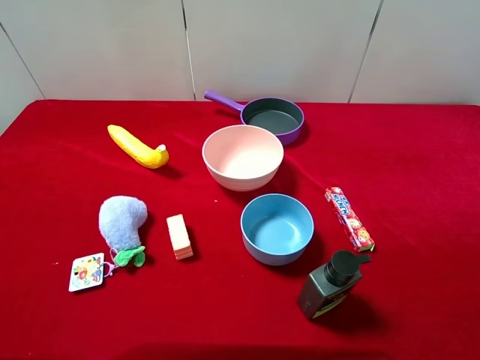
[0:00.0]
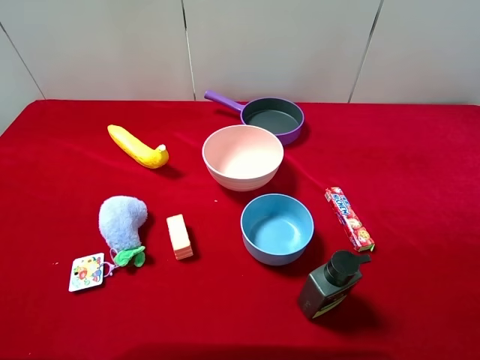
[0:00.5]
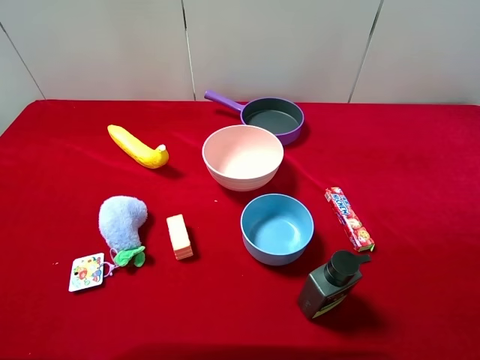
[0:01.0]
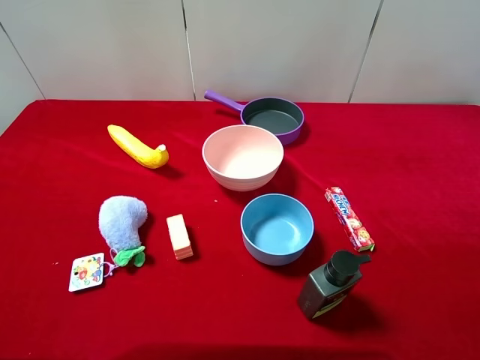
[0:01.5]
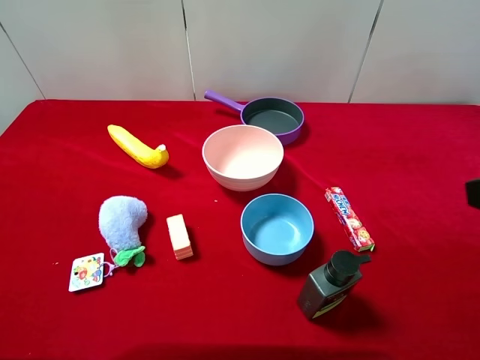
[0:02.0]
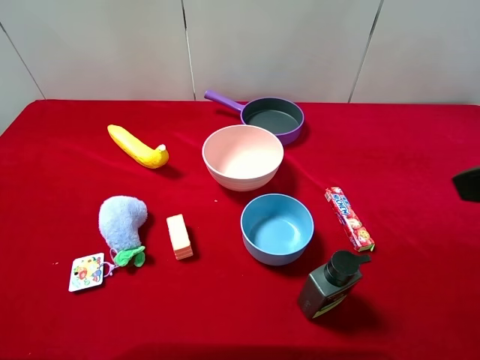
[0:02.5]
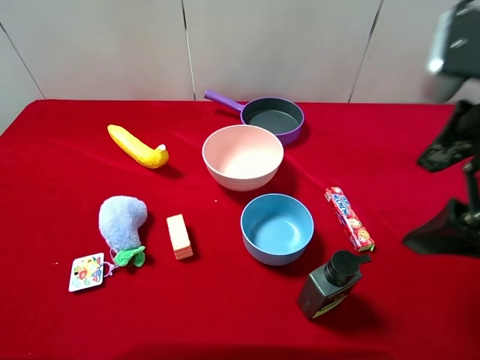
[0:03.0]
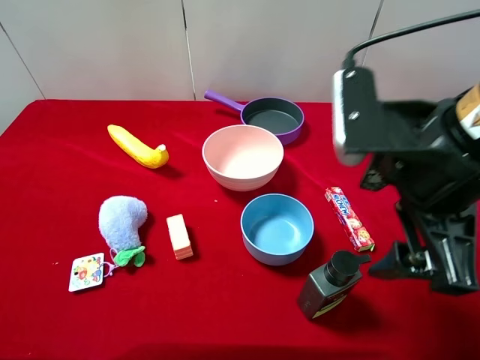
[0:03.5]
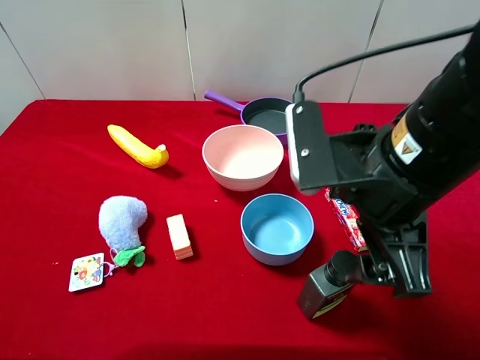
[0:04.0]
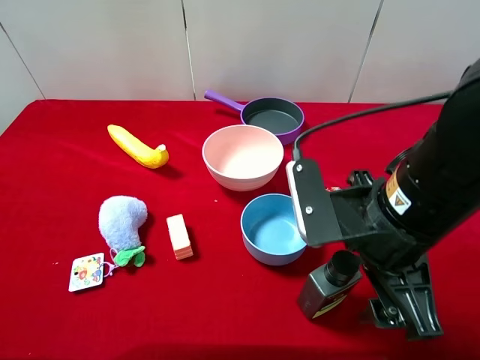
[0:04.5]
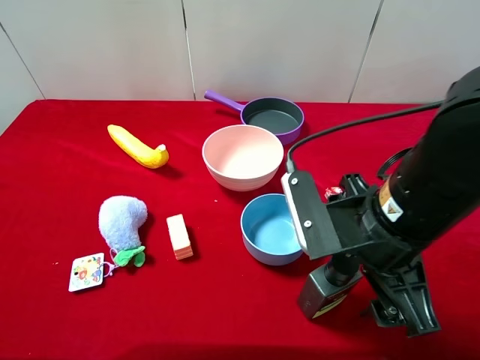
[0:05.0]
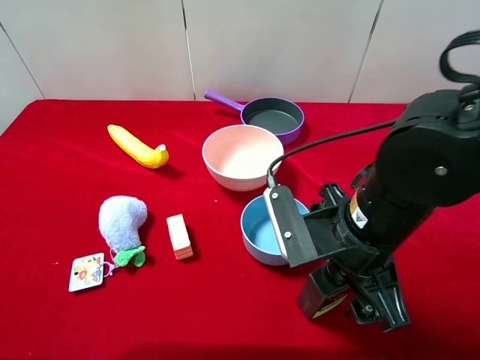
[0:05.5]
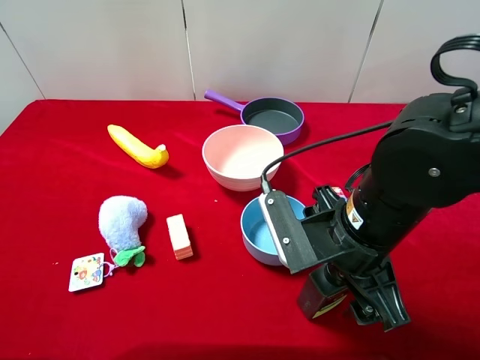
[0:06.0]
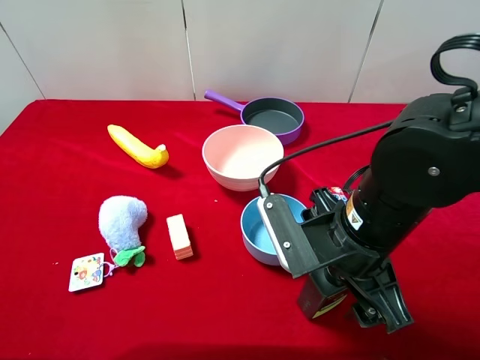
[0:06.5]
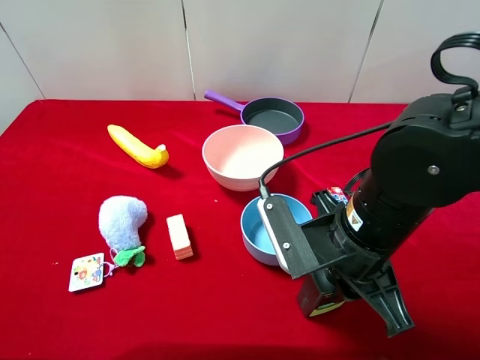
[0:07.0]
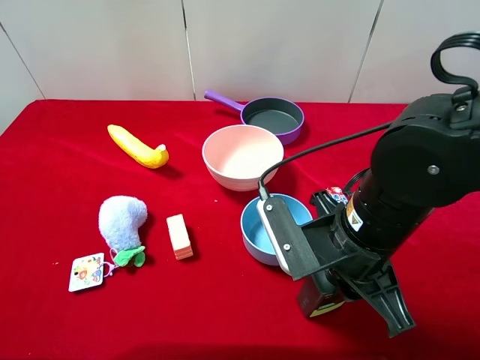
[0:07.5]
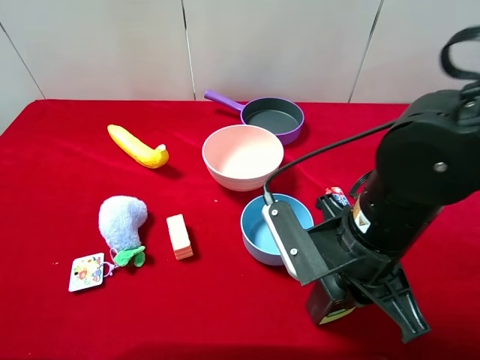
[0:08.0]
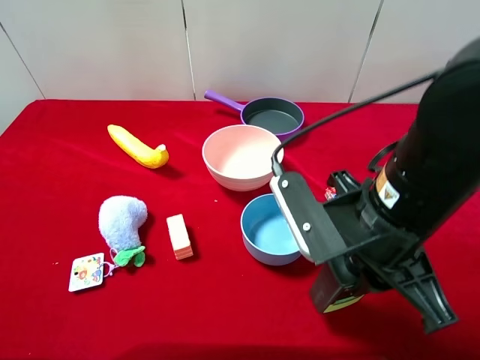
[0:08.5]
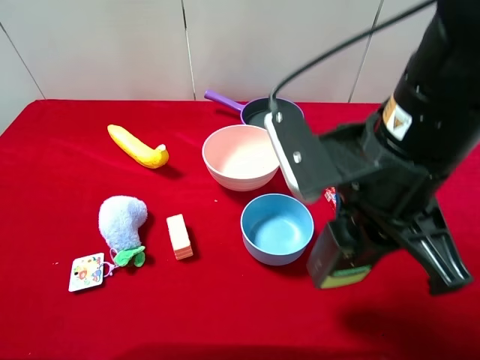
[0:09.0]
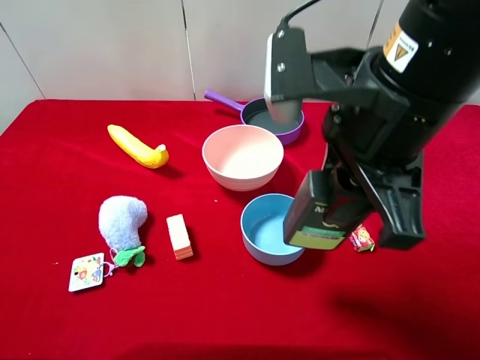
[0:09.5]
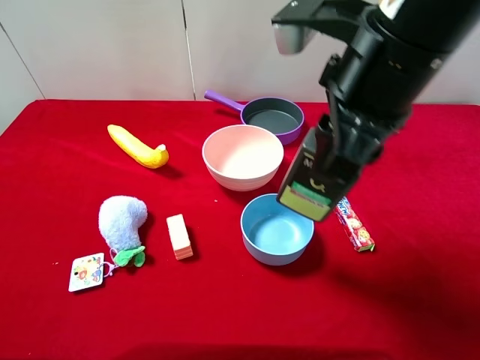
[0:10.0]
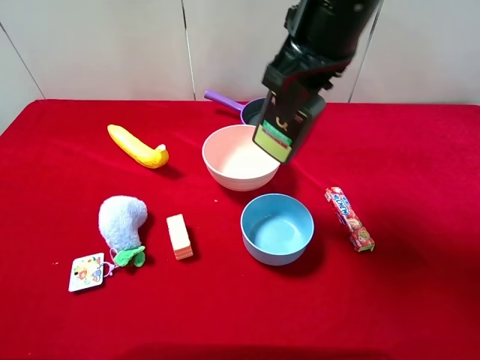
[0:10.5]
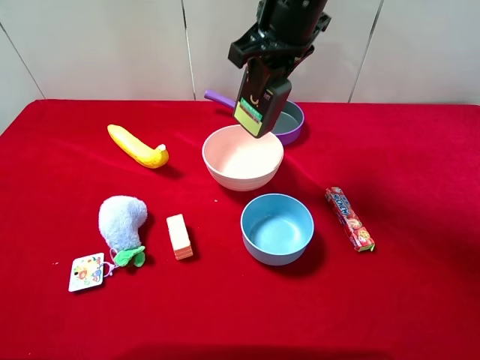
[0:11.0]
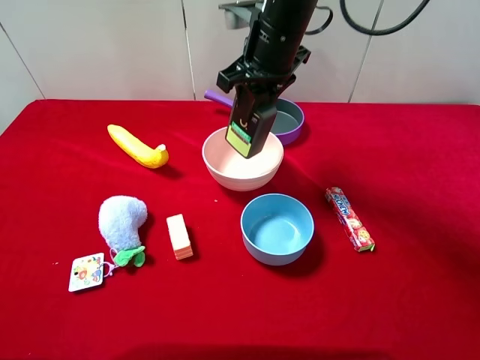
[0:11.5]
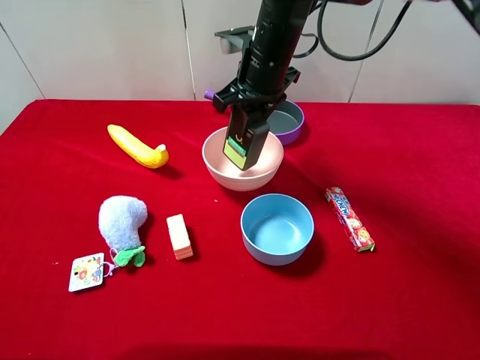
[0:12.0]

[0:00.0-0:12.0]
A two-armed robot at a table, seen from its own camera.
Task of the whole recording: pick up an item with a gripper and place it in a random container on the desktop.
0:02.0 to 0:04.0: The right gripper is displaced to the left, downward and forward by some 15 cm.
0:04.0 to 0:06.0: The right gripper is displaced downward by some 10 cm.
0:06.0 to 0:08.0: The right gripper closes up.
0:08.0 to 0:10.0: The right gripper is displaced upward and forward by roughly 15 cm.
0:10.0 to 0:12.0: The right gripper moves forward, downward and to the left, roughly 20 cm.

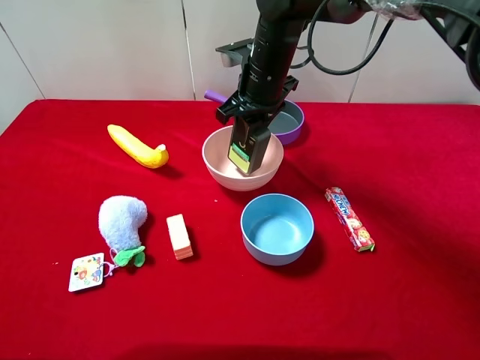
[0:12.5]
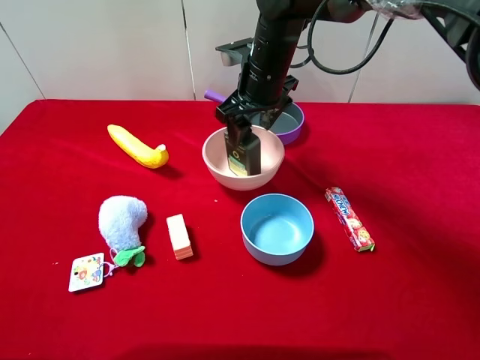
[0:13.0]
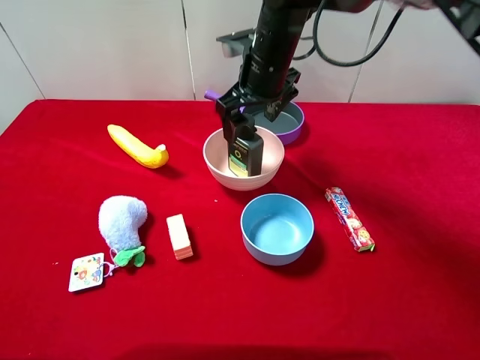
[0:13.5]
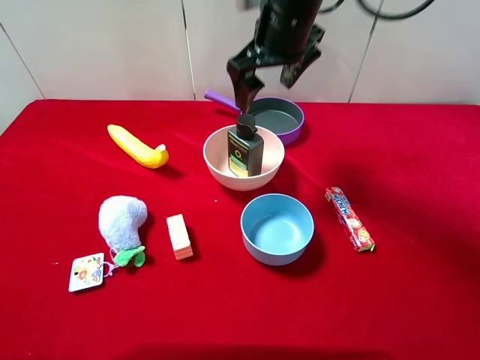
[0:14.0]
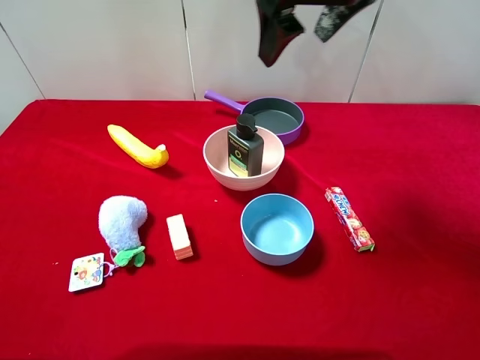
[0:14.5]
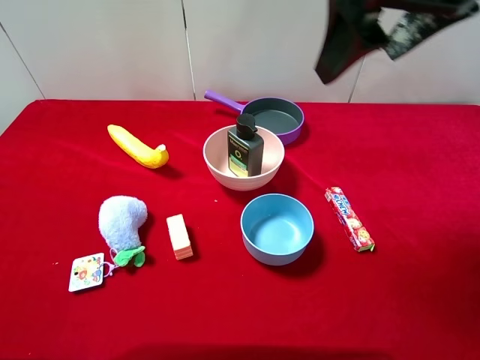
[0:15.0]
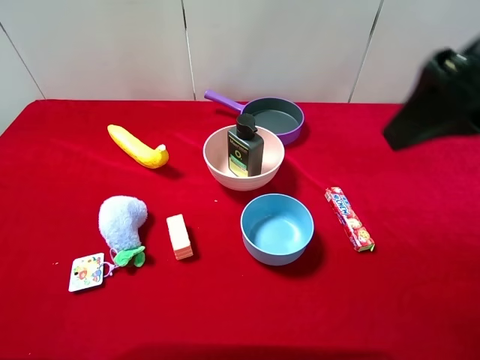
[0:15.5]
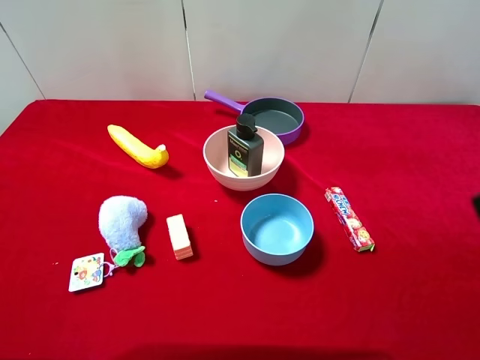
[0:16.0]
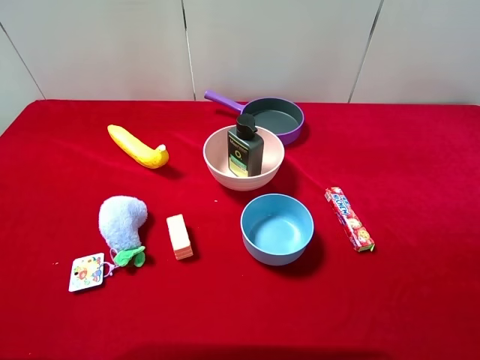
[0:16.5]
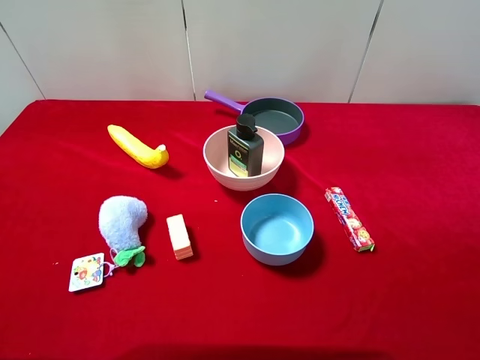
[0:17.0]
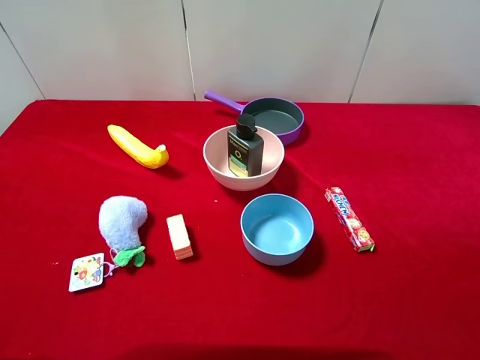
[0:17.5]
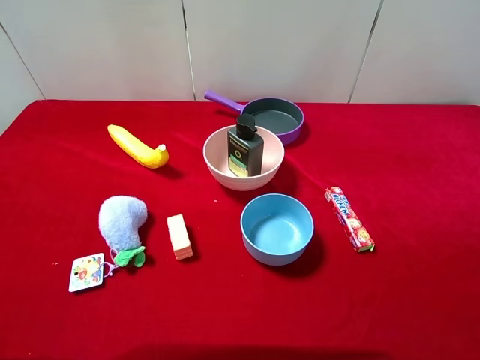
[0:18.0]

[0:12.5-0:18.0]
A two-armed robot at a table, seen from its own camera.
Task of the whole recording: pick up an item with a gripper and place it in a random container on the desktop.
0:12.5 to 0:14.5: The right gripper travels upward and backward by about 20 cm, and opens.
0:14.5 to 0:16.0: The right gripper is displaced backward and to the right by about 30 cm.

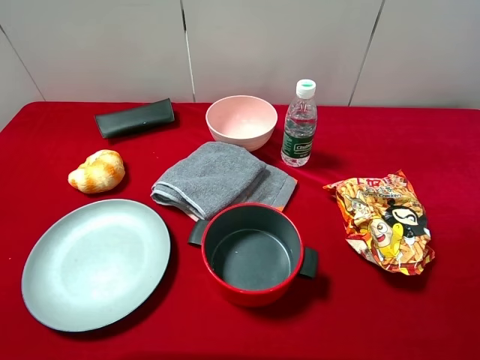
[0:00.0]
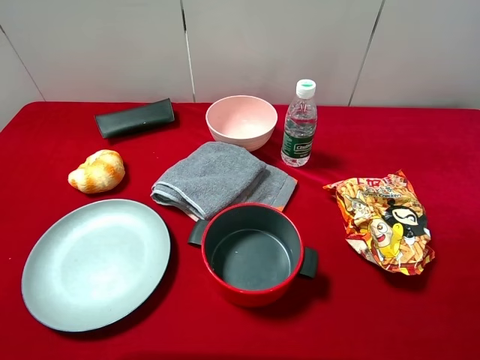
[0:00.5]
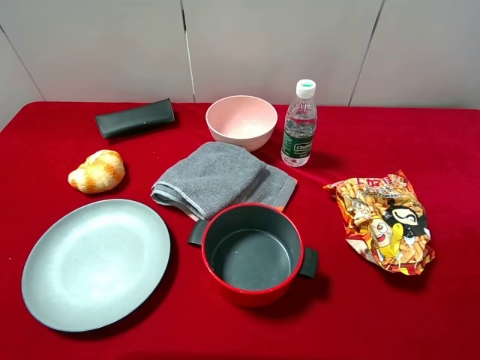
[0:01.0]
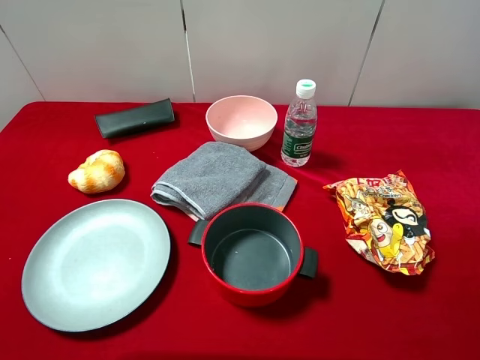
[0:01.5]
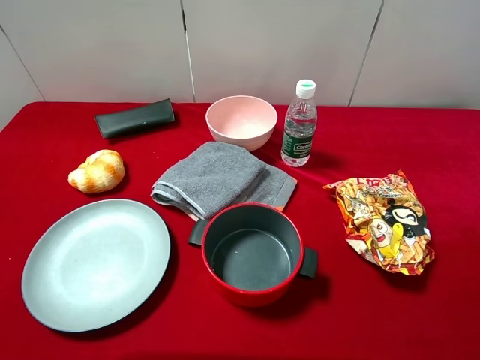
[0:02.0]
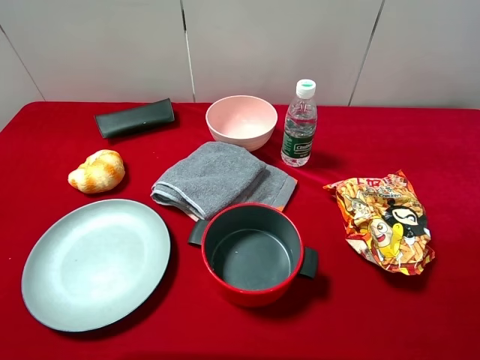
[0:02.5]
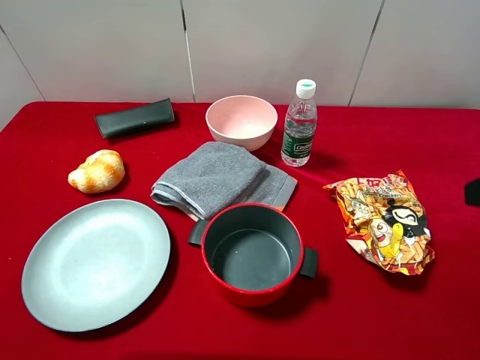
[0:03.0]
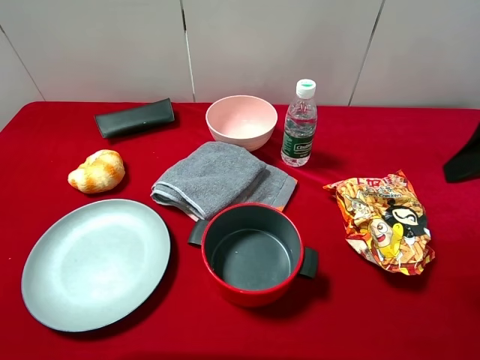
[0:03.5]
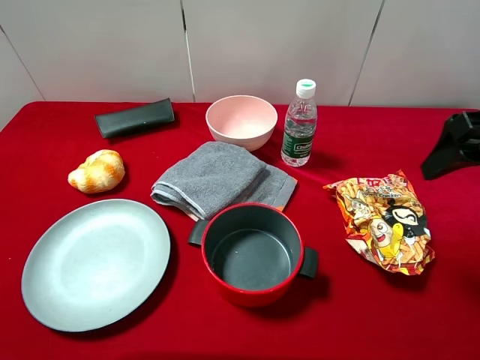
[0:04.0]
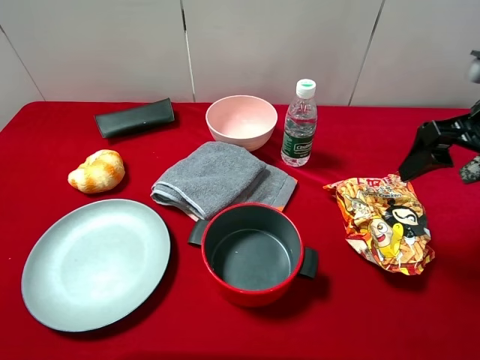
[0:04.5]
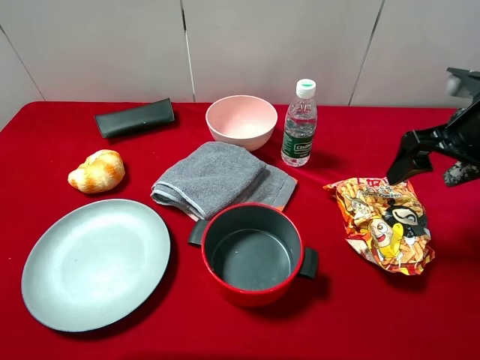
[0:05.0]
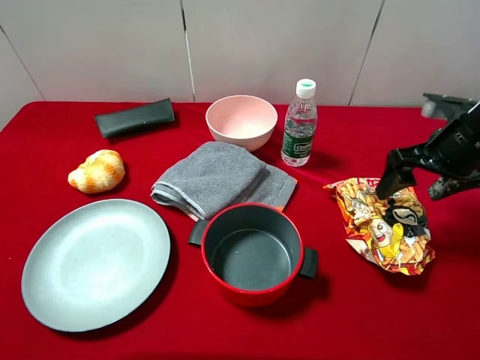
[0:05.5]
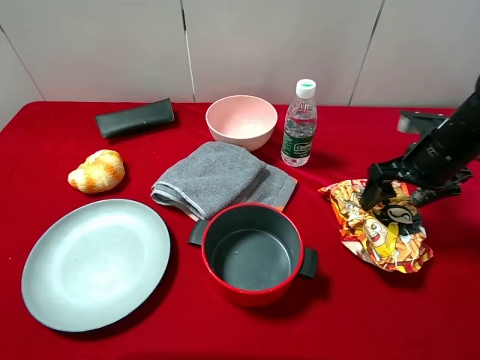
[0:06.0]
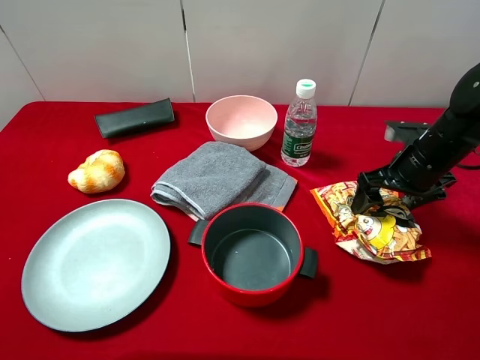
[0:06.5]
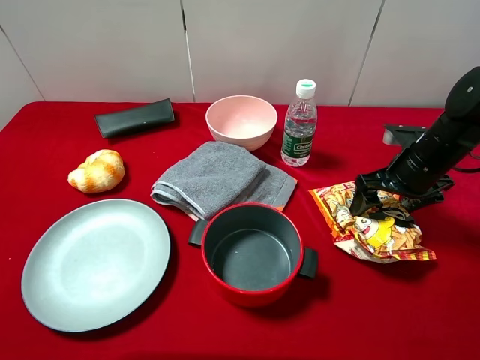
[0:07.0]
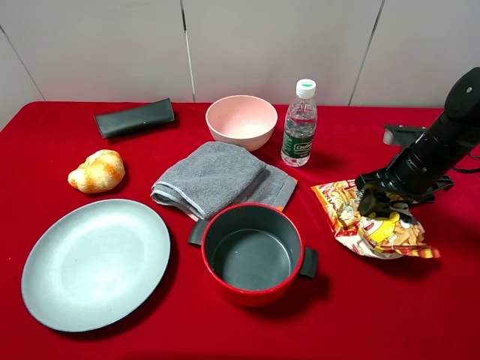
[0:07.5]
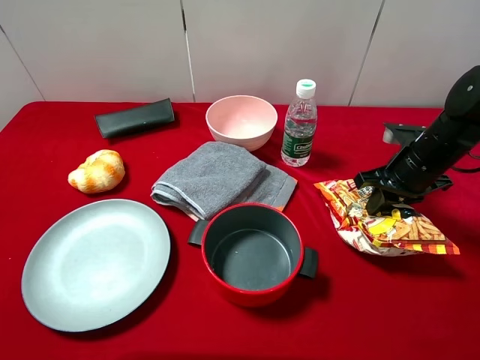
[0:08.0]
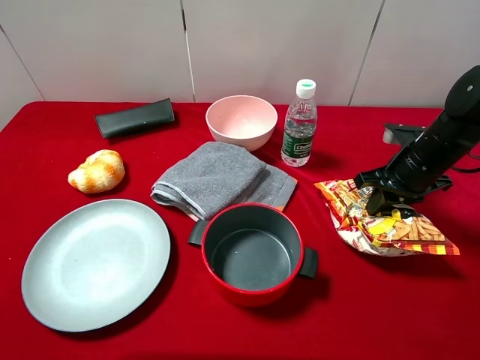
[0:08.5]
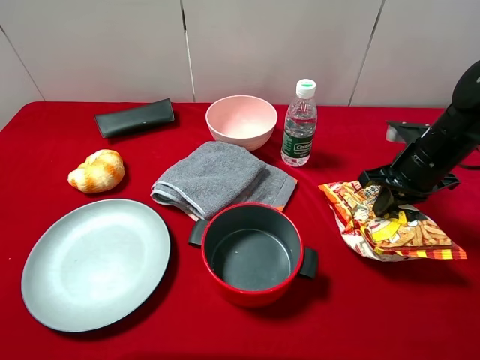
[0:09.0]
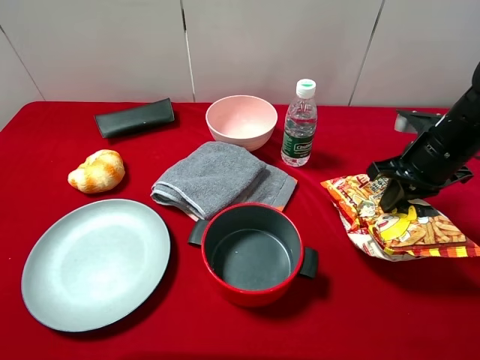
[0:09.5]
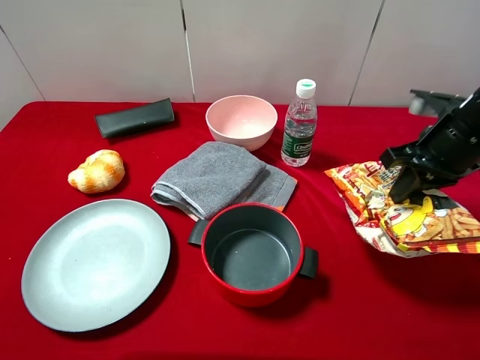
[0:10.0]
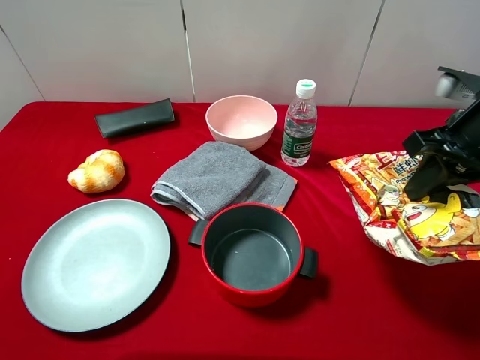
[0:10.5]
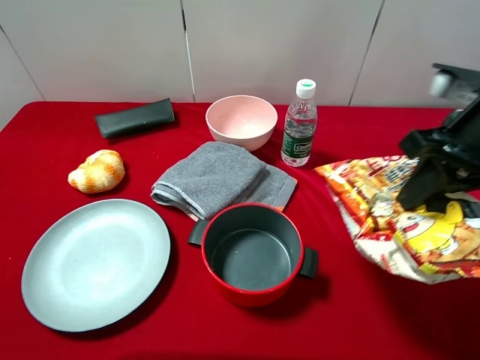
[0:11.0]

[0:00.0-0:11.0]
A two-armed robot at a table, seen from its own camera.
Task of the whole recording: pick up an item with a gripper and place it in a random container on the desktop.
0:02.0 to 0:03.5: The right gripper goes about 20 cm forward.
0:03.5 to 0:05.5: The right gripper moves downward and forward, about 15 cm.
0:05.5 to 0:07.5: The right gripper heads downward, covering about 5 cm, and closes its fingers.
0:07.5 to 0:09.0: The right gripper closes its fingers.
0:09.0 to 0:11.0: The right gripper moves upward and backward, some 15 cm.
